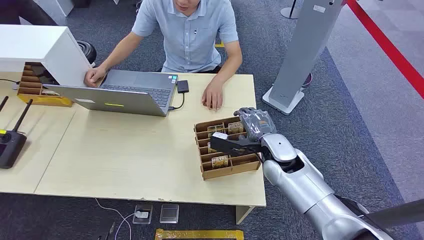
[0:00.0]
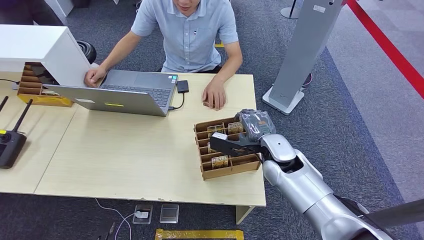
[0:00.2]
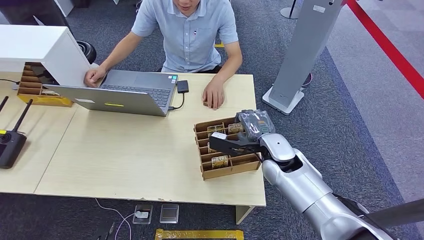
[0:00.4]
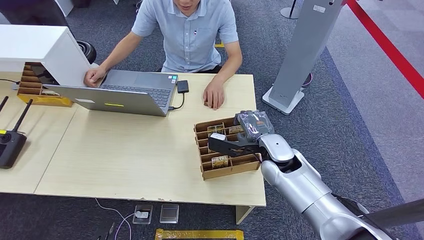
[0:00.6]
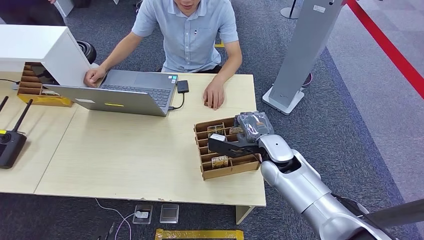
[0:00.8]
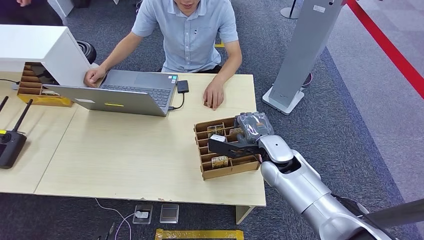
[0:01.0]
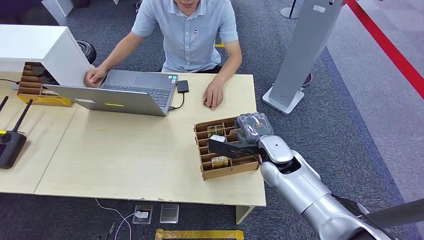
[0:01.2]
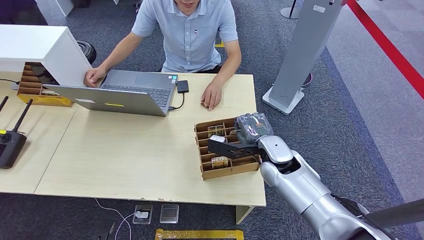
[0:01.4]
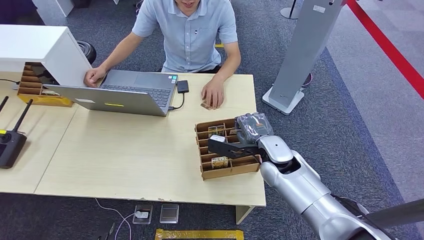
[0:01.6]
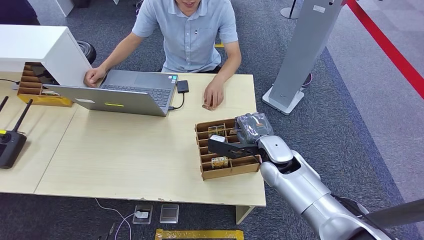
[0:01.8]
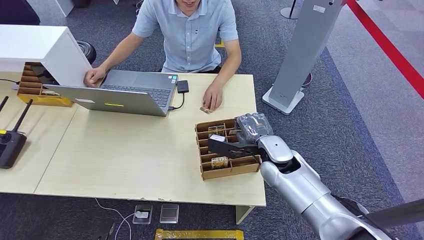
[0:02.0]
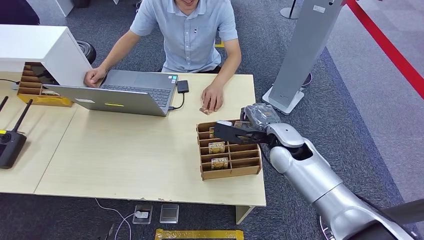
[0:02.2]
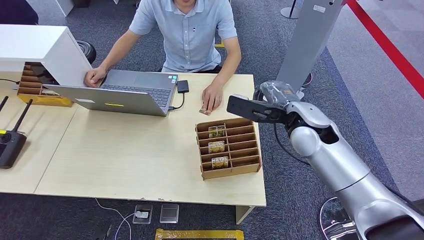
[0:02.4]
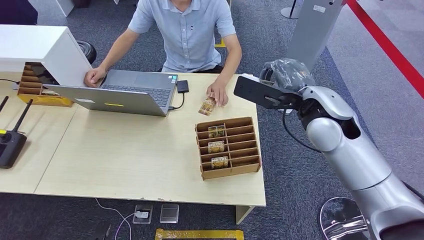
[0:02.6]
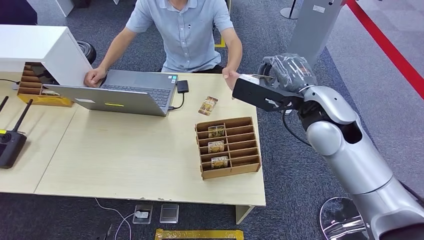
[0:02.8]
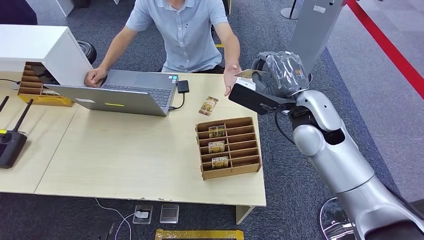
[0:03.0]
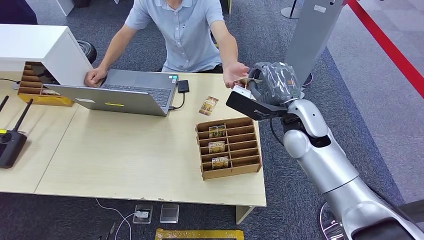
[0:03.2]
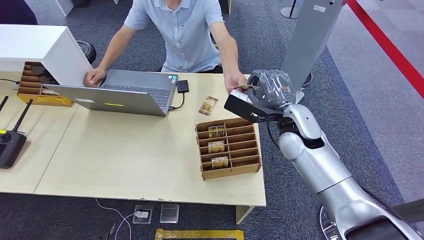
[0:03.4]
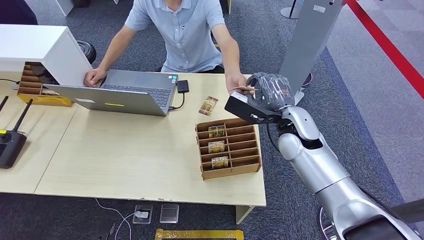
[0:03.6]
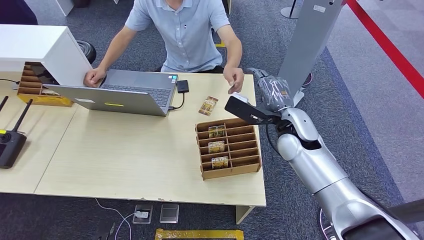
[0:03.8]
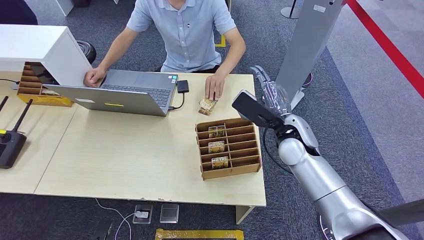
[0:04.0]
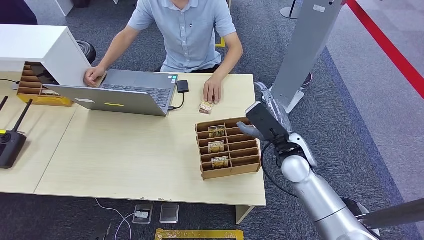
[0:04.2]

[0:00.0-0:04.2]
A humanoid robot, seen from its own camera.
Step, 0:00.0 to 0:02.4: Pick up the key card from the card box.
Step, 0:03.0 to 0:04.2: Hand the key card to the target.
0:02.8 to 0:04.2: The right hand heads downward, covering roughly 15 cm.
